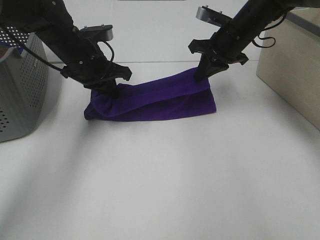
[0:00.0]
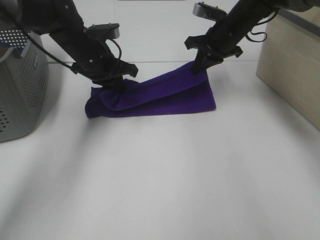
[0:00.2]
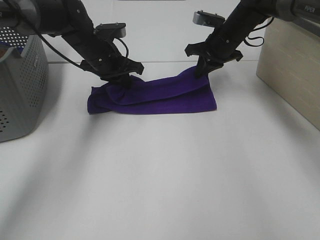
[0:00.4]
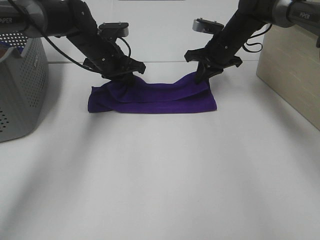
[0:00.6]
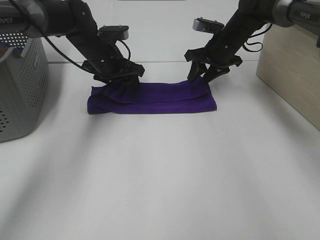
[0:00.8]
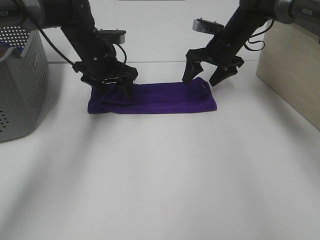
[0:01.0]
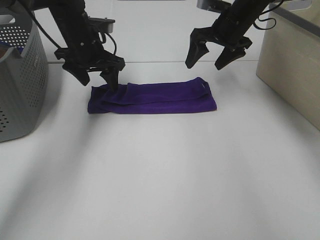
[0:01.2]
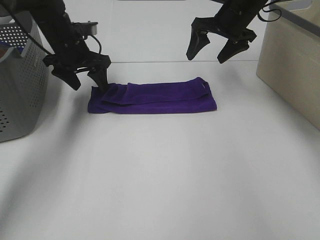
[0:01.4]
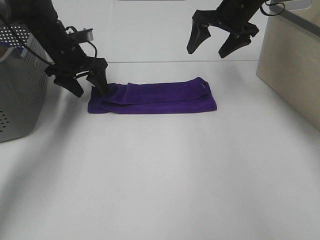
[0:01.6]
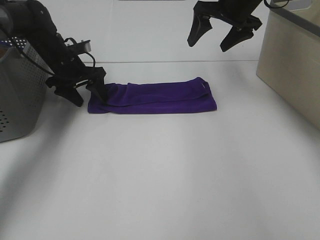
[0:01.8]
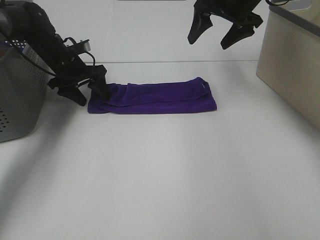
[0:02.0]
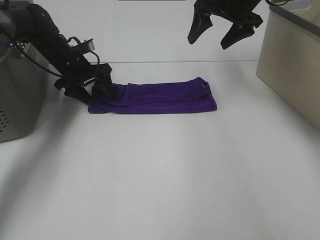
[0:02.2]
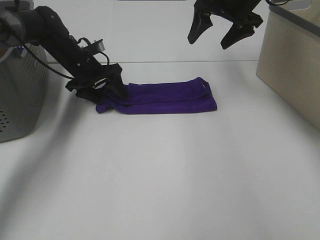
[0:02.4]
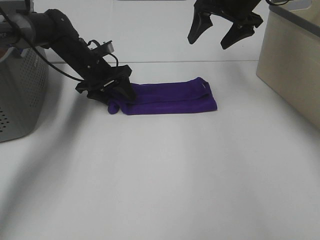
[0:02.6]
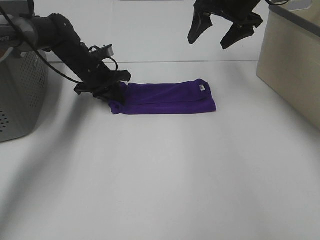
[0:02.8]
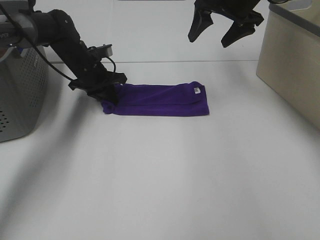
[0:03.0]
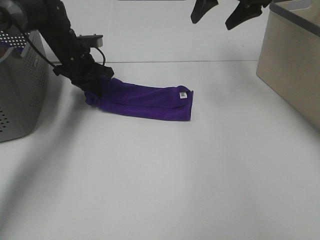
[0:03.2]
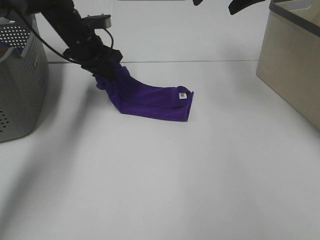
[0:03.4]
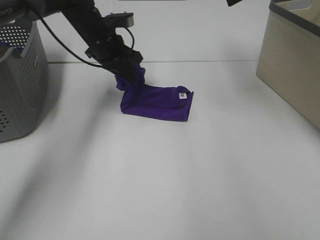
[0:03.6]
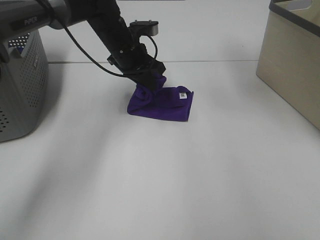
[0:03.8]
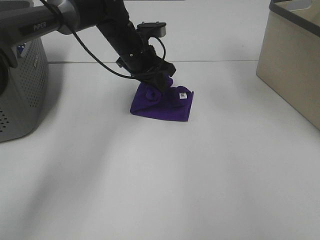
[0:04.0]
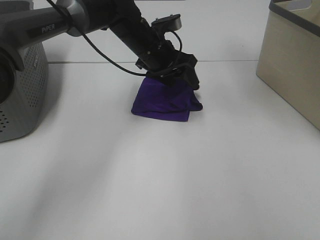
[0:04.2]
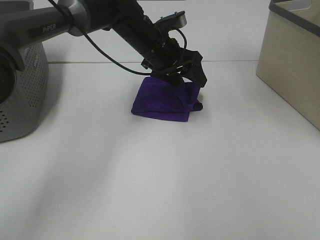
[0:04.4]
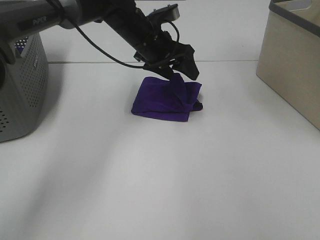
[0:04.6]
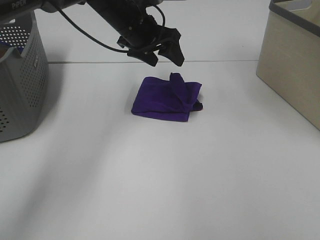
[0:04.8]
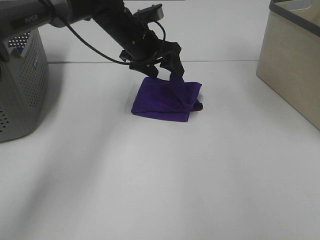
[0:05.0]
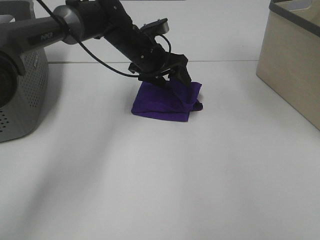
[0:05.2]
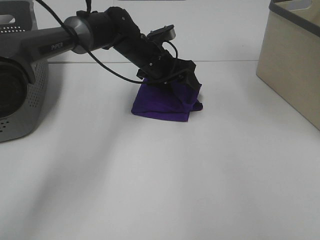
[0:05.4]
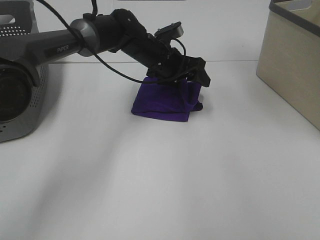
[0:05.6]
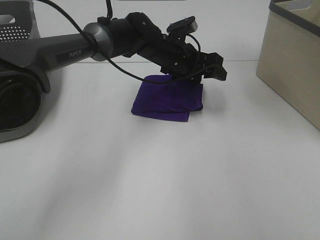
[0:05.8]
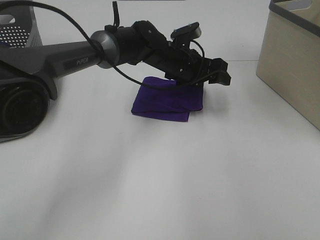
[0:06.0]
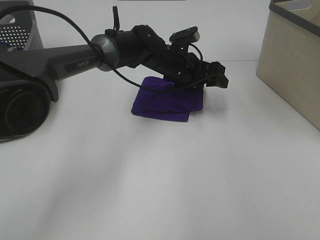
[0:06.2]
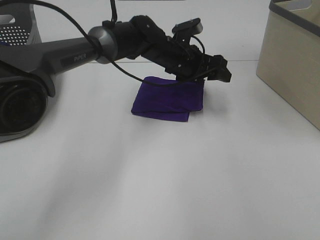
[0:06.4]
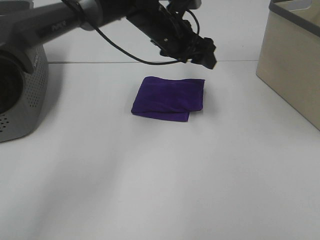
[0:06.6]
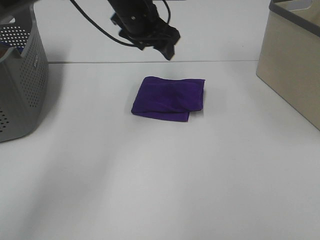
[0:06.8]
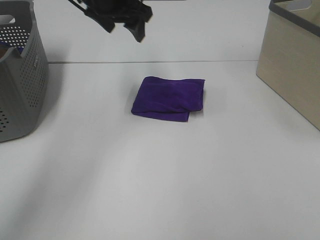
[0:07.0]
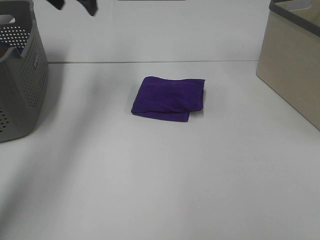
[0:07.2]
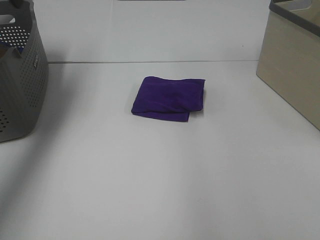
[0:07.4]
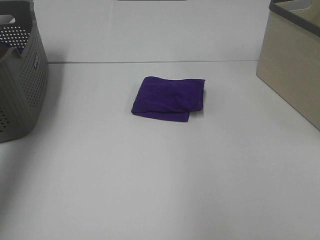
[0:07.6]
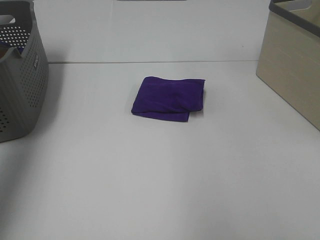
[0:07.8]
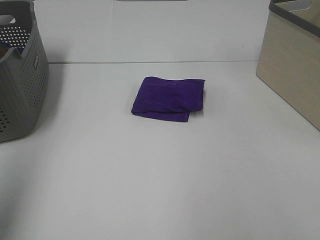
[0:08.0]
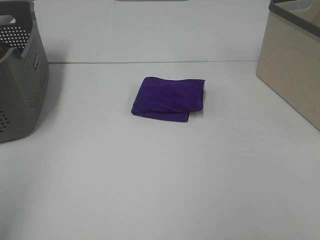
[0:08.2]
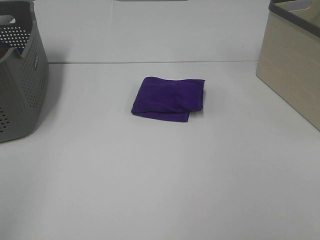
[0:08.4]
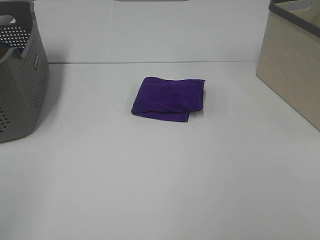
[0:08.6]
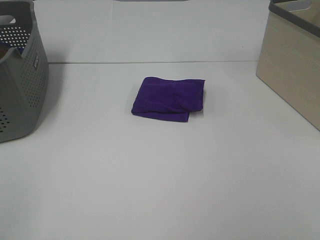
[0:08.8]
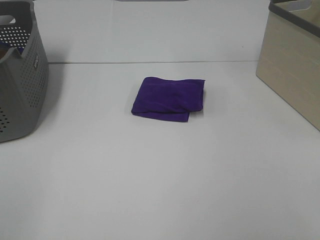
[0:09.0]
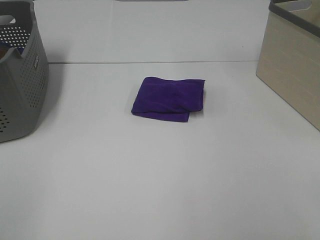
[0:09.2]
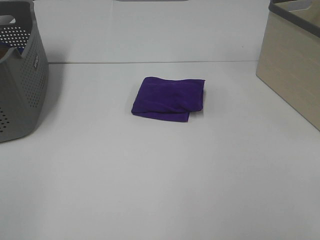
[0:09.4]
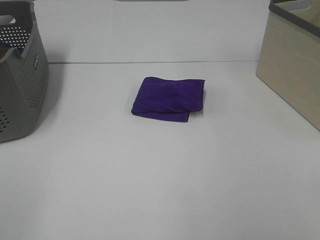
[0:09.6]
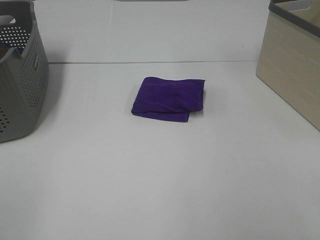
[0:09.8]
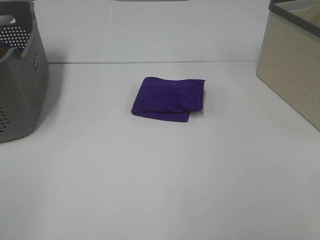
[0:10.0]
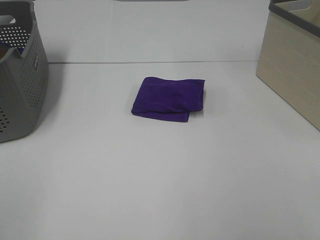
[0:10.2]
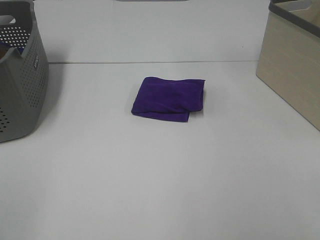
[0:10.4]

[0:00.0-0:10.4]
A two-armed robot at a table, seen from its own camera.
Task of the whole recording: Fold towels.
Step, 0:00.6 to 0:04.0: Left hand: fold the purple towel from left to right.
Step, 0:04.2 to 0:06.2: Left hand: adjust the purple towel.
0:00.0 to 0:01.4: The right gripper opens. Meanwhile the left gripper moves forward, about 5 cm, and opens up.
0:01.4 to 0:03.0: The left gripper goes roughly 5 cm downward, and closes.
0:03.0 to 0:04.4: The right gripper goes approximately 15 cm upward and backward. The left gripper moves to the right and upward, about 20 cm, and opens its fingers.
0:04.4 to 0:06.0: The left gripper changes place by approximately 5 cm.
0:06.0 to 0:07.4: The right gripper heads backward and to the right, covering approximately 15 cm. Meanwhile the left gripper shifts some 40 cm to the left and upward.
0:07.4 to 0:09.0: The left gripper shifts roughly 40 cm backward.
0:09.0 to 0:10.4: Both grippers stay put.
